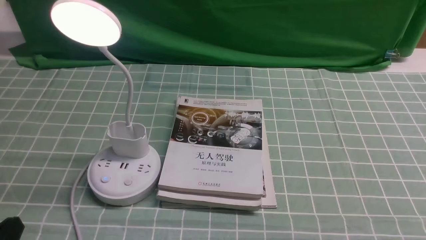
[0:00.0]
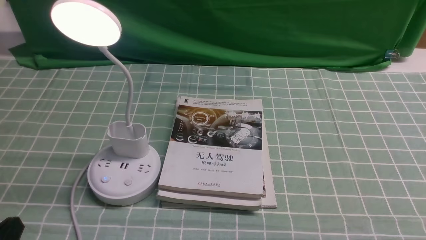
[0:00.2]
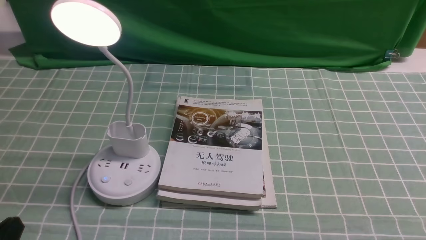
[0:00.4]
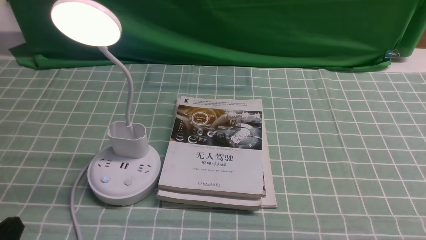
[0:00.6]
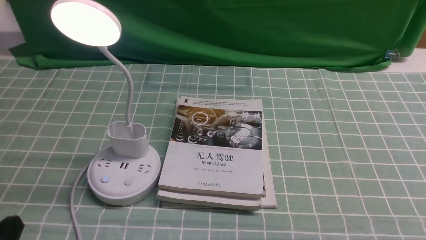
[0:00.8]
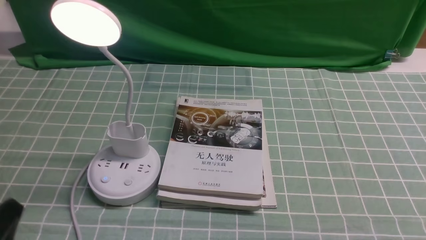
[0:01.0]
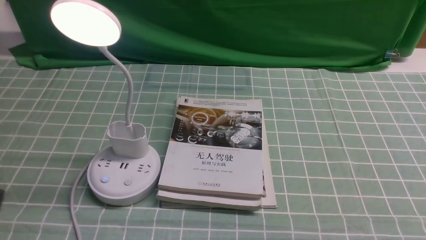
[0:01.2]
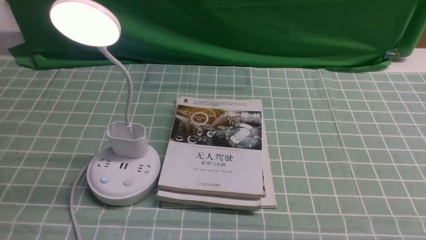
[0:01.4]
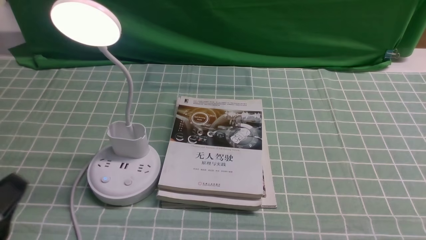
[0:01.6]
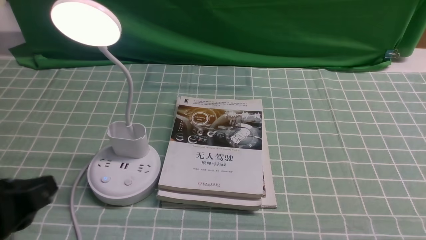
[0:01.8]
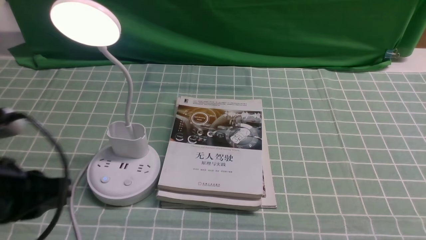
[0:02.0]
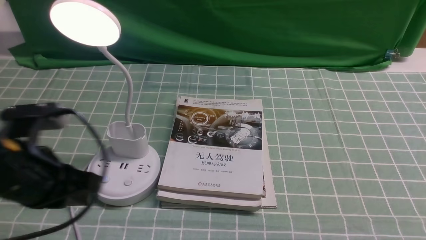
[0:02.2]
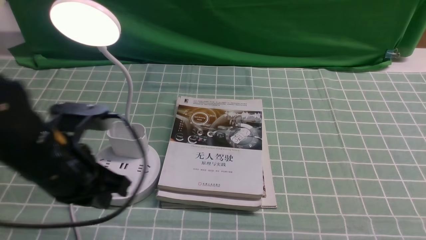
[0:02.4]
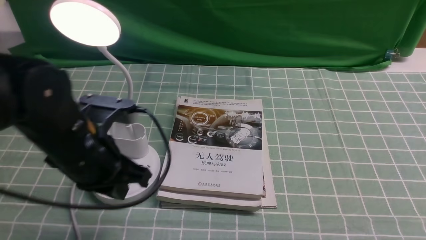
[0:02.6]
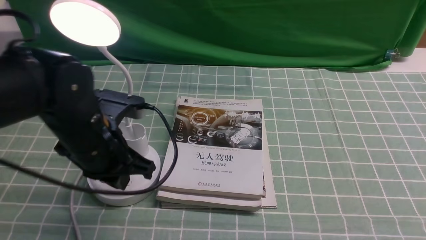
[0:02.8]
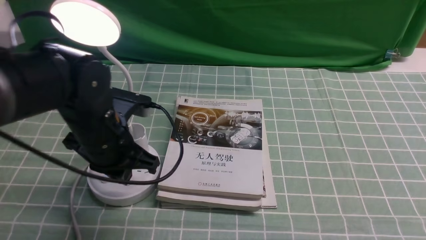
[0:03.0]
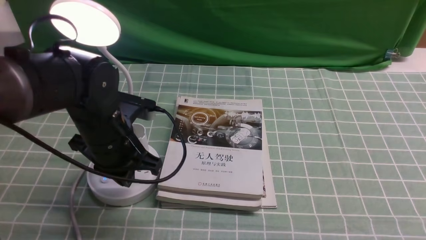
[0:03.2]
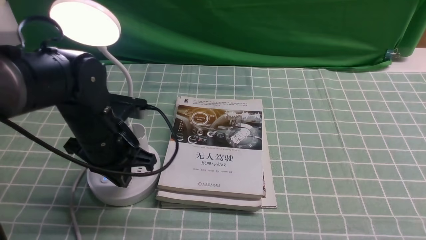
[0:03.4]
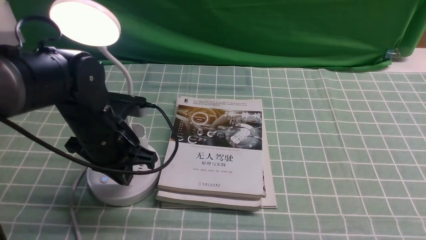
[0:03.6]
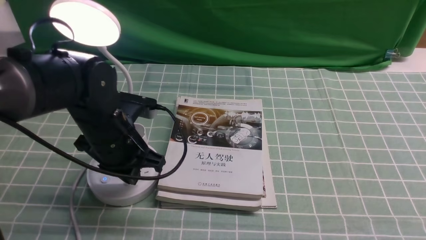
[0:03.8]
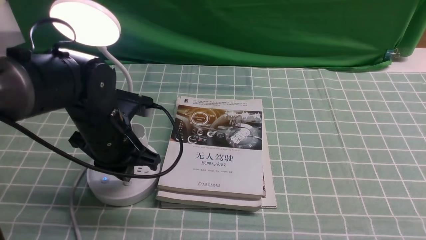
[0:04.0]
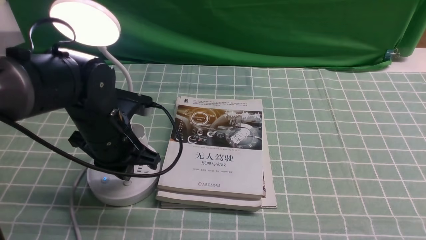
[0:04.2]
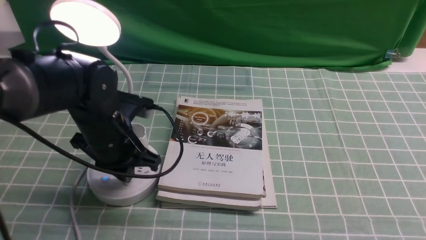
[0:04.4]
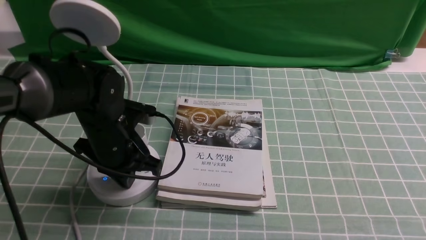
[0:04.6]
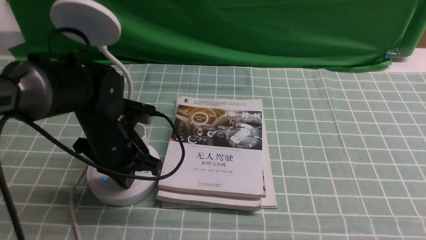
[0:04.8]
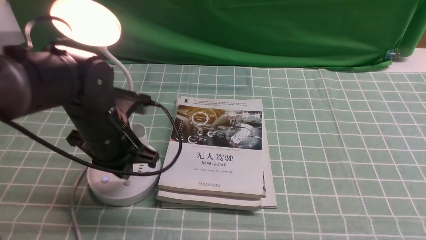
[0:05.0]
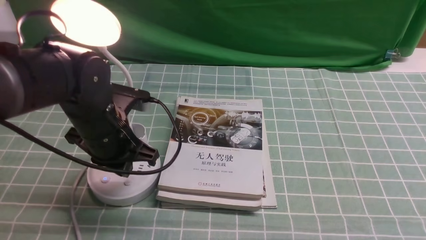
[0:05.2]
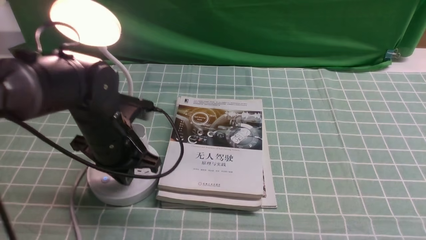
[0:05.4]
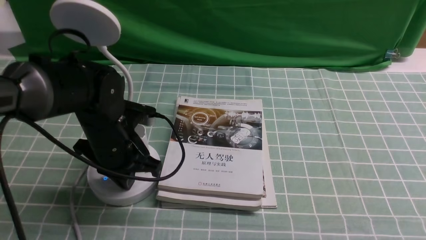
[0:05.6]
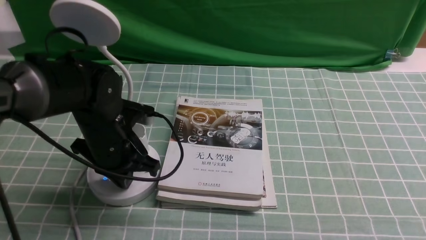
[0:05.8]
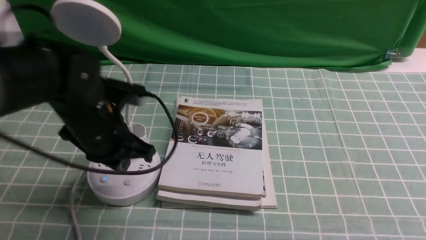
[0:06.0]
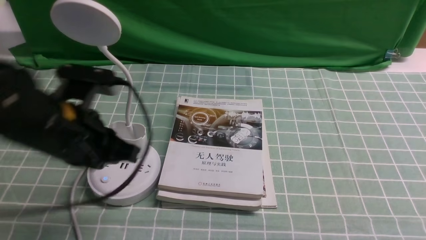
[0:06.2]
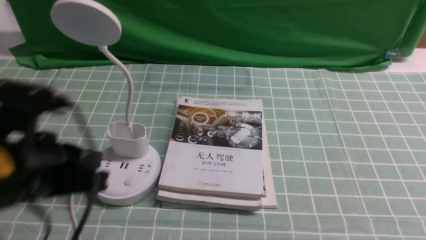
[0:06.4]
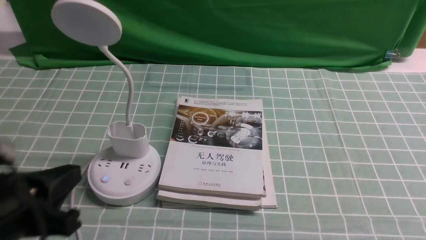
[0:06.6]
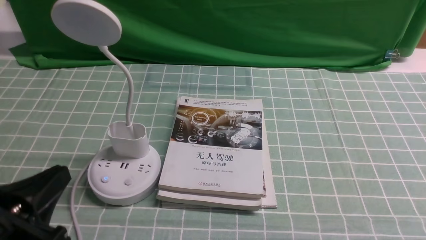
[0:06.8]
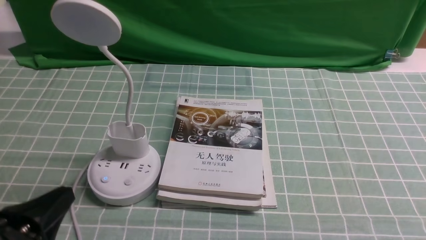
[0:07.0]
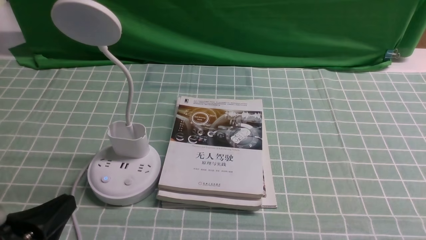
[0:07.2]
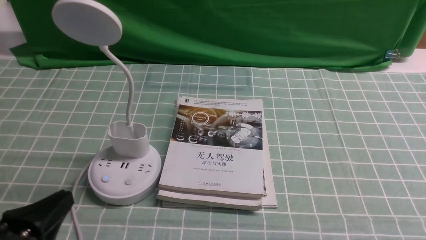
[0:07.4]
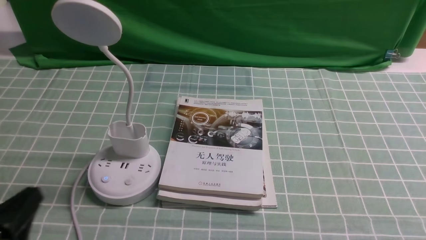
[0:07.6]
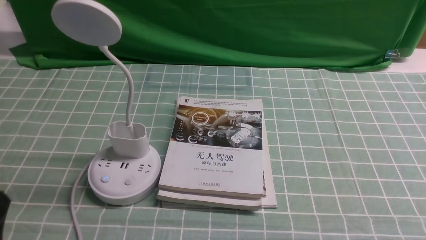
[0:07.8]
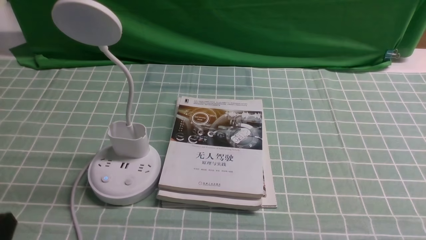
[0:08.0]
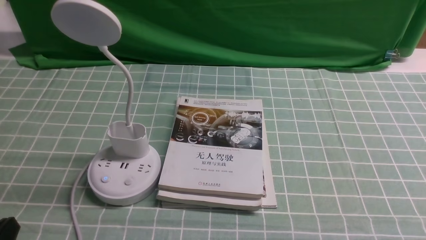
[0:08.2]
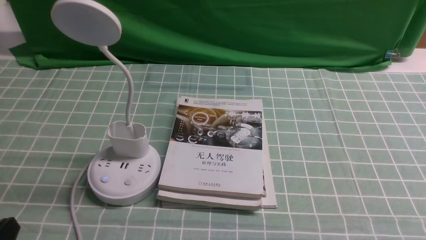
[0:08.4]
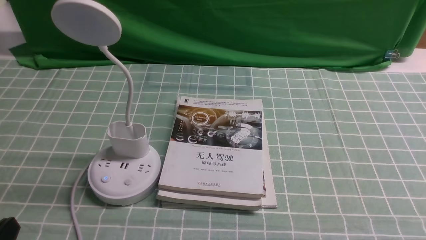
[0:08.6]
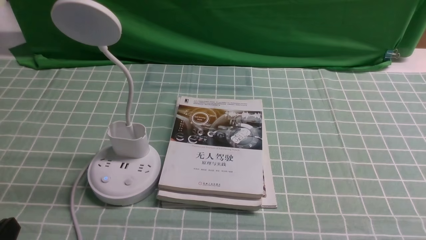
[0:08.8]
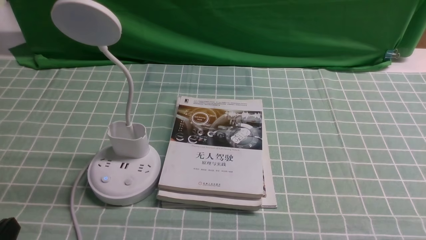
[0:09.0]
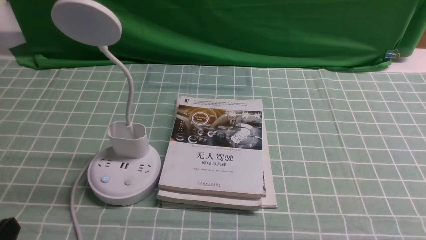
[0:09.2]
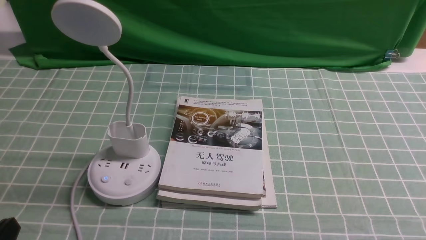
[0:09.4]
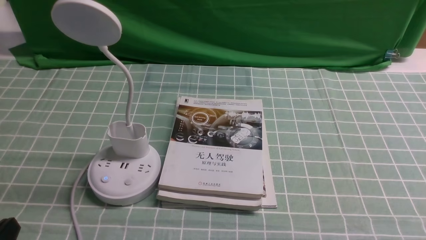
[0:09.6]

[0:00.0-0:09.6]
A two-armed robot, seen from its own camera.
Task of the whole recording: turn off the desk lamp on the blue coffee tablecloth by hand.
Step, 0:00.0 to 0:05.8: use the left arm to press the button switch on the lamp holder.
0:00.0 to 0:01.6: The left gripper travels upward by approximately 5 cm.
0:01.6 to 0:03.2: The left gripper shifts about 25 cm forward and to the right.
0:03.2 to 0:04.8: The grippers move only a little.
0:04.8 to 0:06.4: The left gripper shifts some 15 cm backward and upward.
0:06.4 to 0:08.0: The left gripper travels backward, downward and to the left by roughly 15 cm.
0:08.0 to 0:09.6: Neither gripper changes place.
